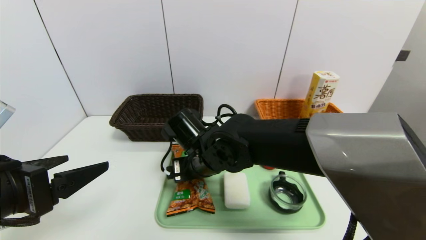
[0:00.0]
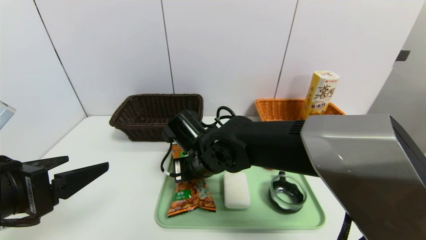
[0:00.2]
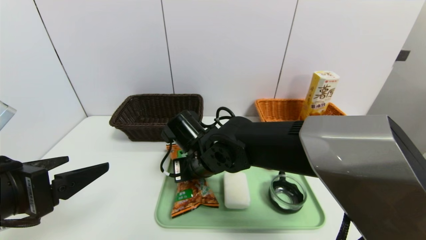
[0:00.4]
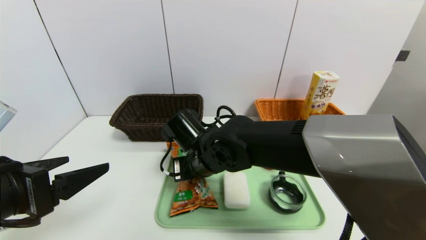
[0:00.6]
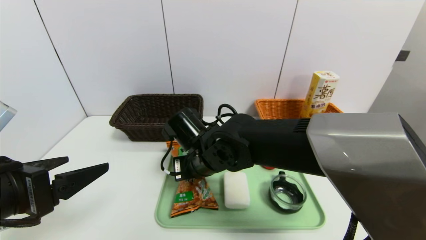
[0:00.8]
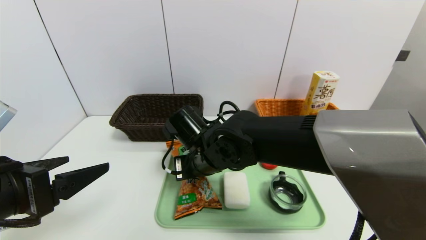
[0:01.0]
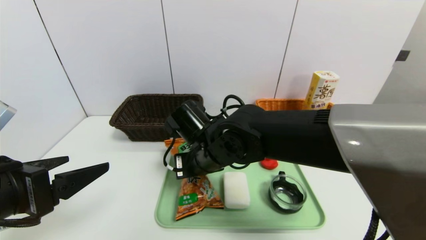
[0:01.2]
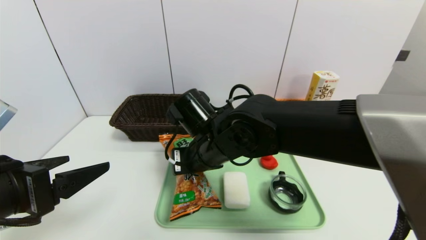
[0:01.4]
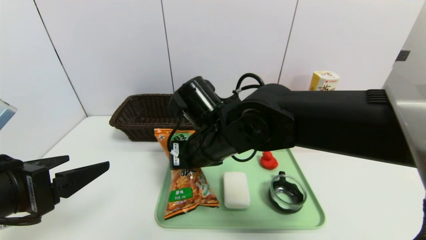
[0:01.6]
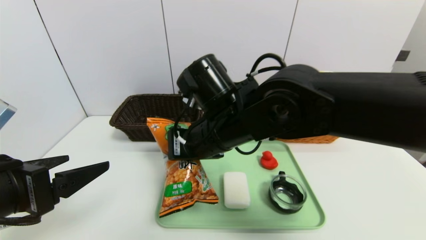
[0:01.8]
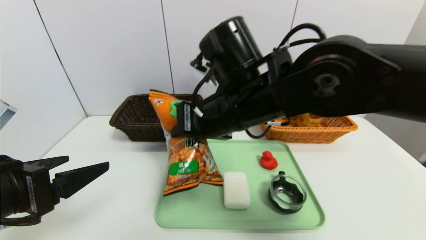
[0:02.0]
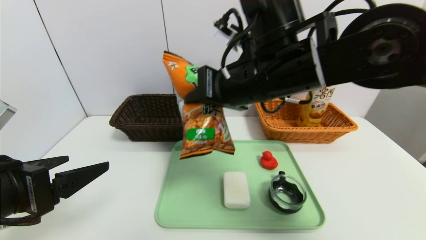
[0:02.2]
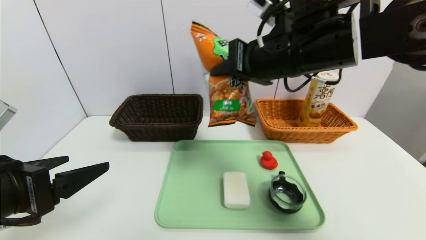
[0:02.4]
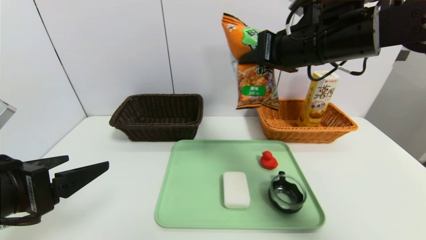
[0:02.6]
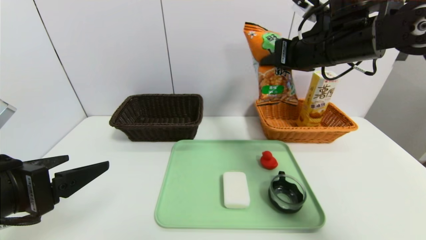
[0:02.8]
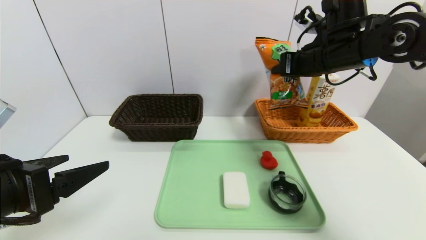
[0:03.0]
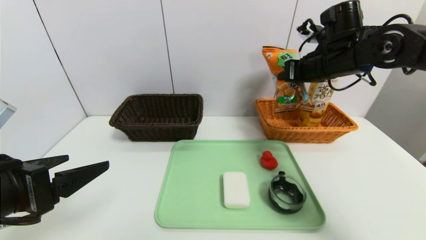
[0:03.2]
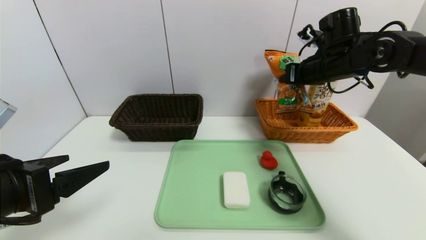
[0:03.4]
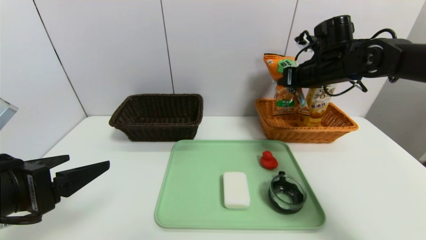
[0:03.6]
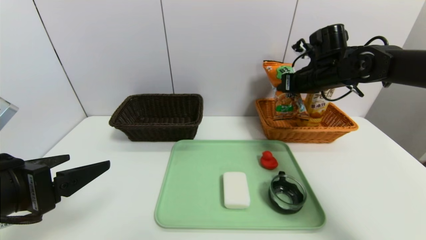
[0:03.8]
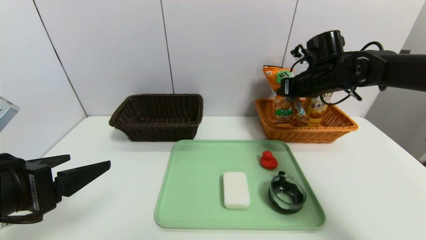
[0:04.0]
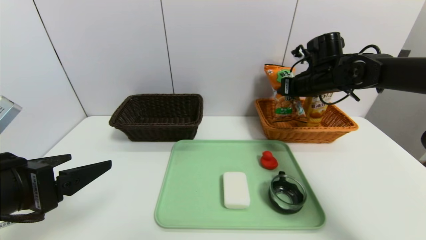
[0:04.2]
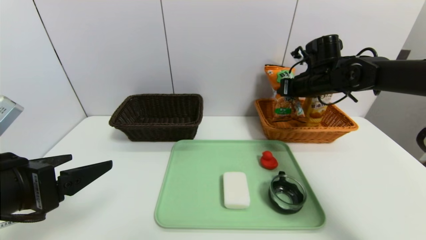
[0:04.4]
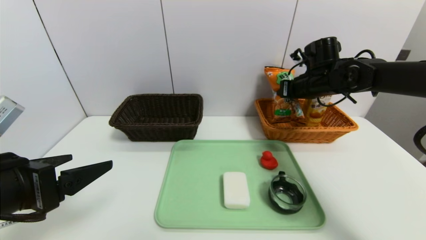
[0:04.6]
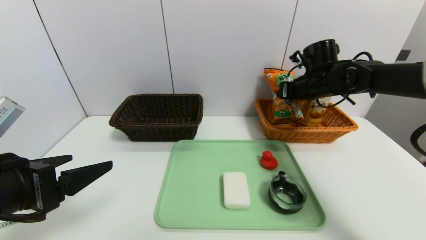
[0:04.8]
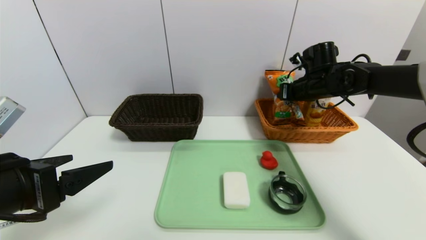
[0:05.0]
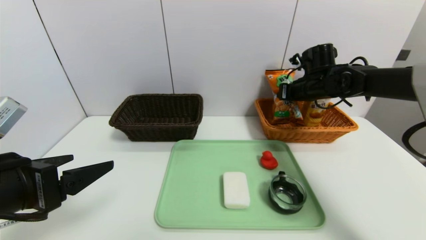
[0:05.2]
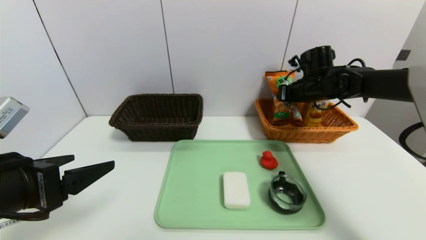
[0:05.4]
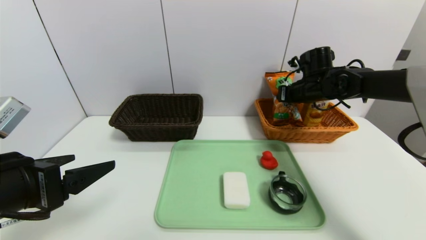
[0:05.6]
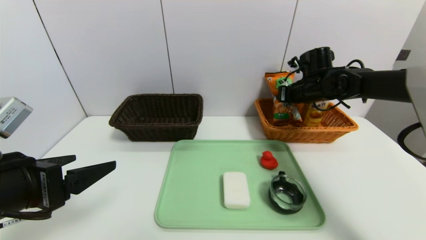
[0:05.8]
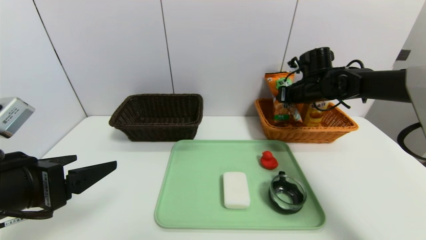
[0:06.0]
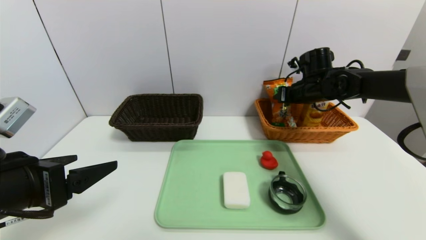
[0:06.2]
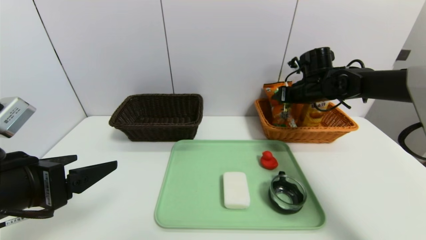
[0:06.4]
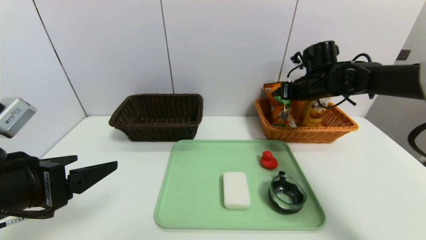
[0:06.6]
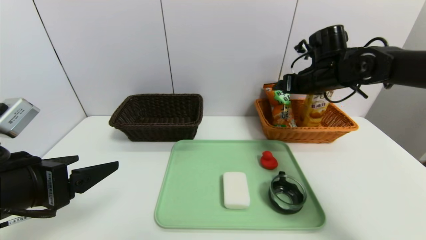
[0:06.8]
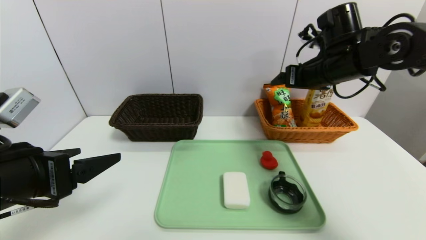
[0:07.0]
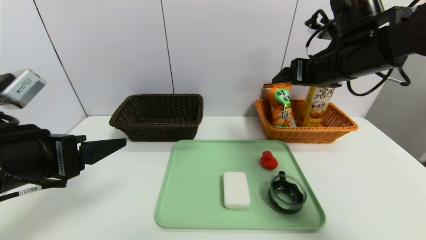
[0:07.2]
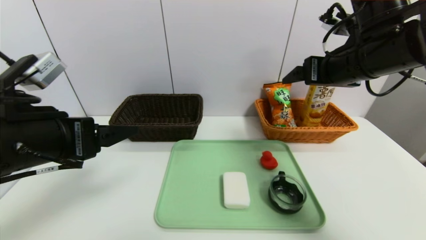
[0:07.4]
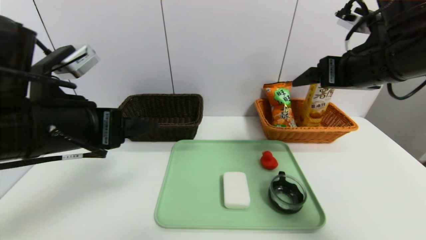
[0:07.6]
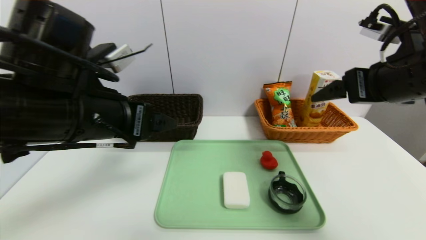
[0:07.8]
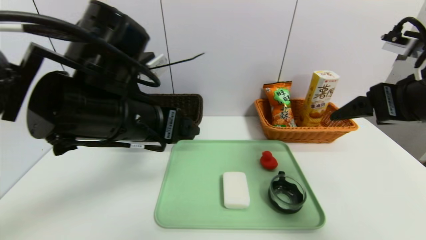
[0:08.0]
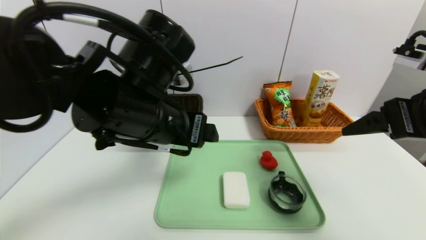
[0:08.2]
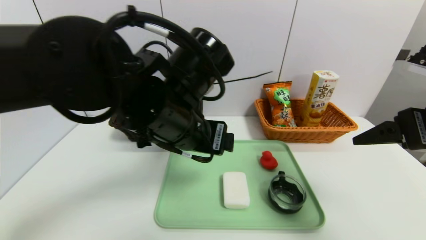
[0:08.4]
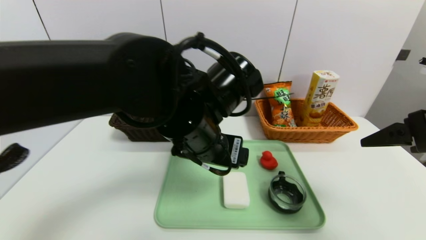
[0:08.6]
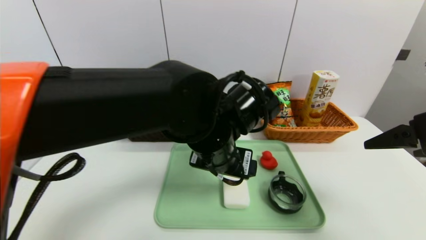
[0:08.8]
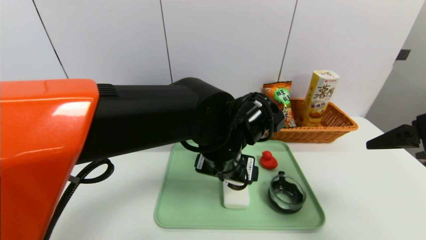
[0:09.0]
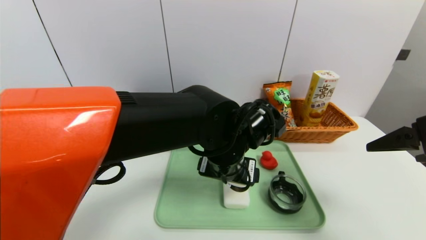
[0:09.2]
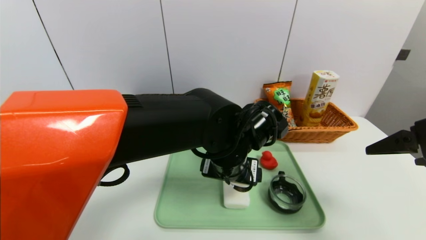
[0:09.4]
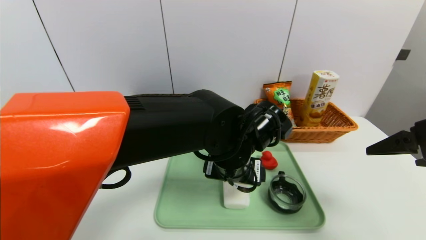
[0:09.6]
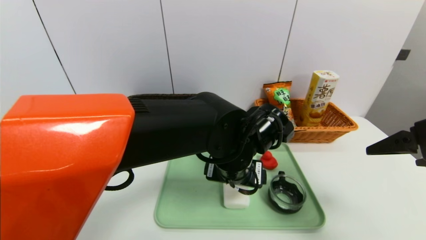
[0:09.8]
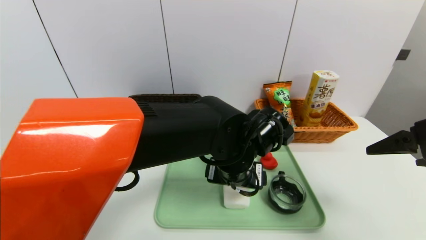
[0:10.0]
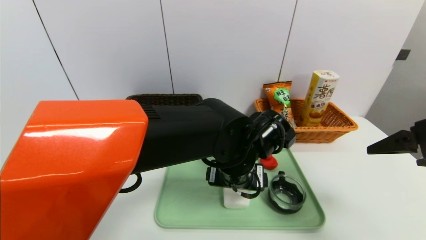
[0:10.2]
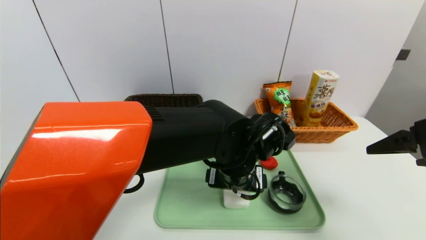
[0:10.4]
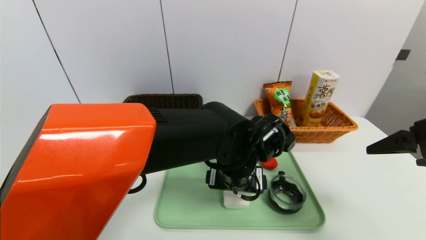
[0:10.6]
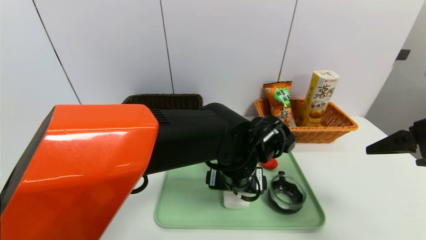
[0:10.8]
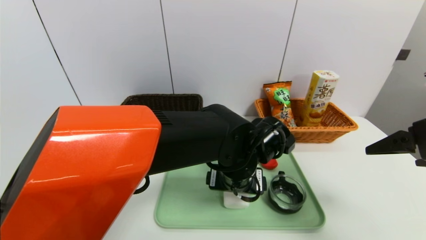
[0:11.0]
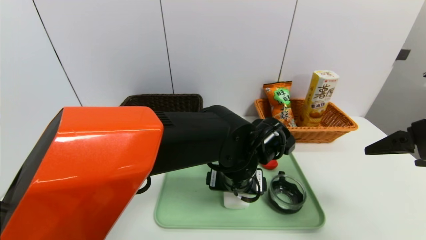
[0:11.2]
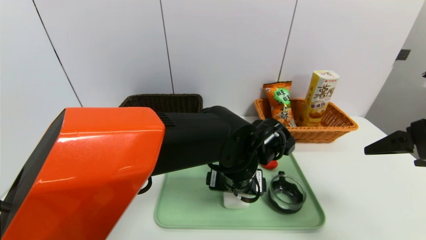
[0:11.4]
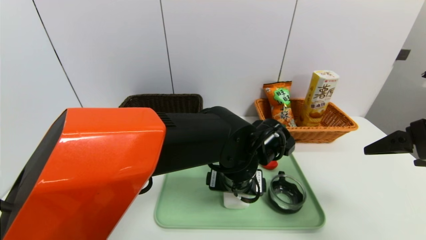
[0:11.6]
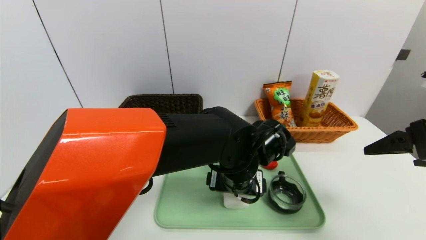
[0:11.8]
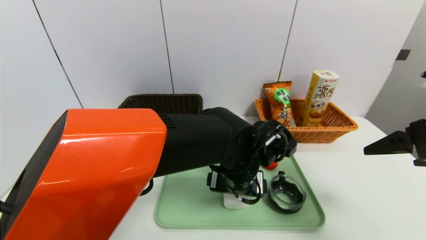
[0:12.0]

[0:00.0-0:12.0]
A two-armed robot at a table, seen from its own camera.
Task of the whole recording: place the food in the right basket with the right gripper, and place the non food items in the left basket with the left gripper.
Step, 0:00.0 to 0:06.8: Grasp the cookie and put it in the right basket.
0:00.0 to 0:01.6: The right gripper heads upward, covering some 5 cm, and closes.
0:01.6 to 0:03.0: The right gripper heads to the right, forward and upward, covering some 25 cm.
0:03.0 to 0:04.4: The right gripper is displaced downward and forward by approximately 10 cm.
0:04.4 to 0:06.0: The grippers move only a little.
0:06.0 to 0:07.6: The left gripper shifts approximately 10 cm forward, to the right and upward. Meanwhile the right gripper heads backward and upward, covering some 25 cm, and opens up.
0:07.6 to 0:09.0: The left gripper travels to the right and downward by about 25 cm; the right gripper heads backward and to the right, covering about 15 cm.
0:10.4 to 0:12.0: Both grippers stay about where they are.

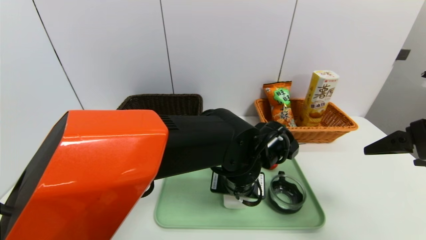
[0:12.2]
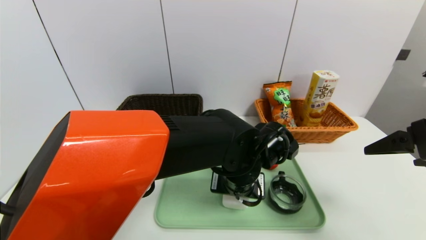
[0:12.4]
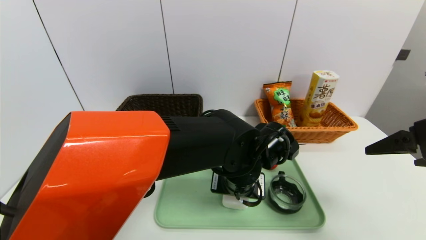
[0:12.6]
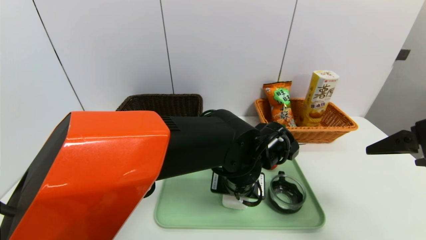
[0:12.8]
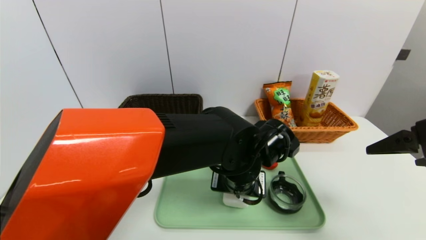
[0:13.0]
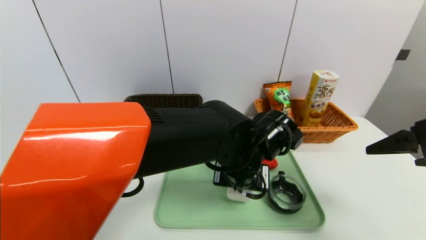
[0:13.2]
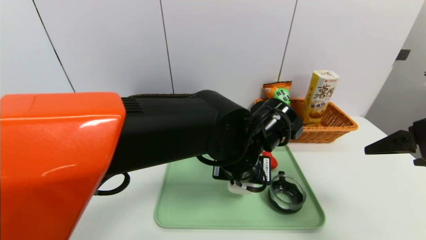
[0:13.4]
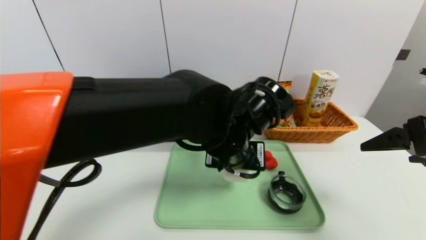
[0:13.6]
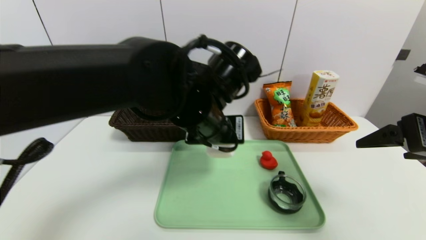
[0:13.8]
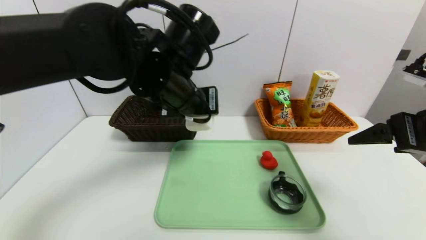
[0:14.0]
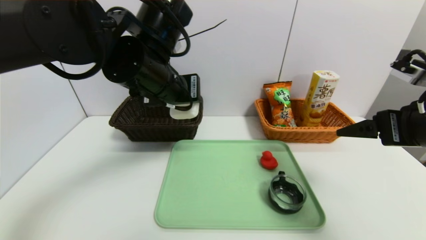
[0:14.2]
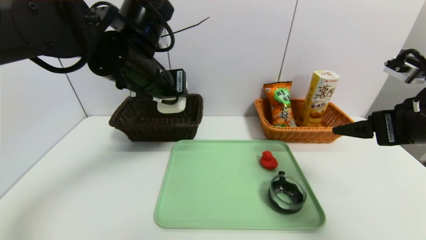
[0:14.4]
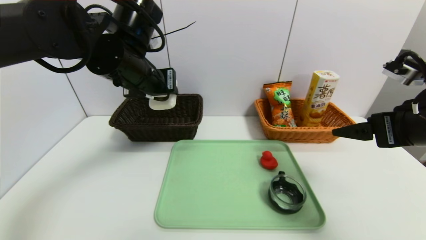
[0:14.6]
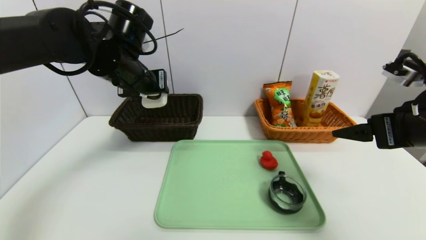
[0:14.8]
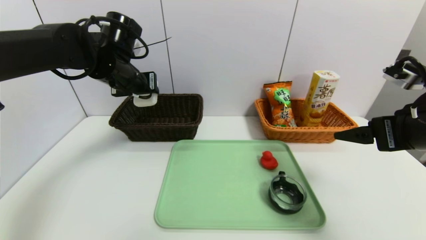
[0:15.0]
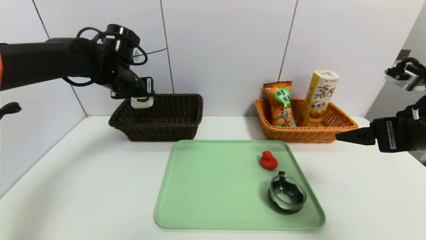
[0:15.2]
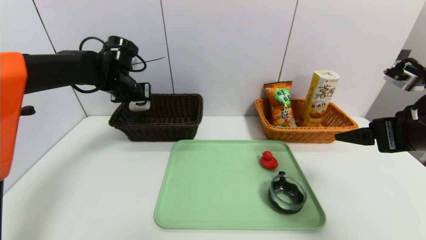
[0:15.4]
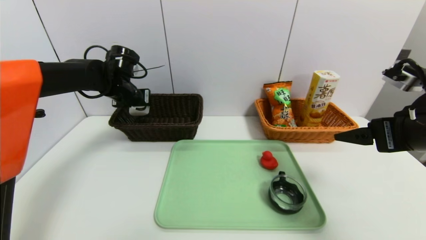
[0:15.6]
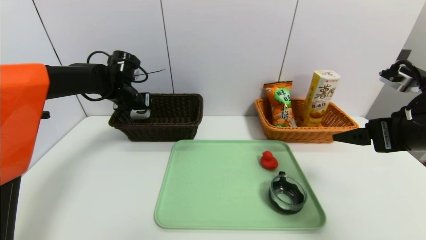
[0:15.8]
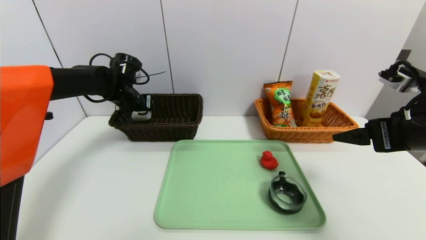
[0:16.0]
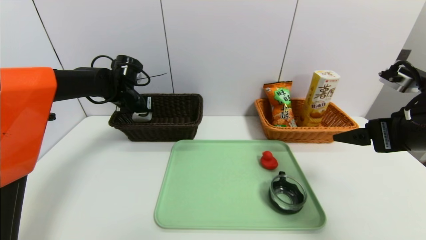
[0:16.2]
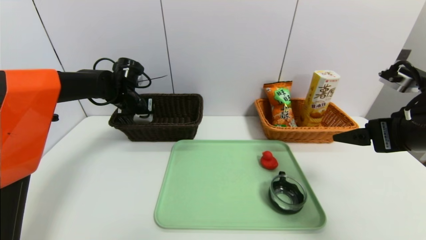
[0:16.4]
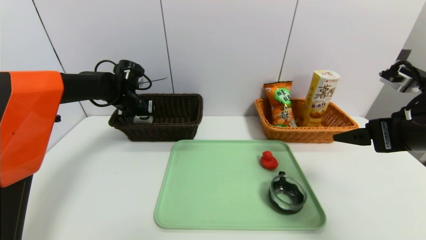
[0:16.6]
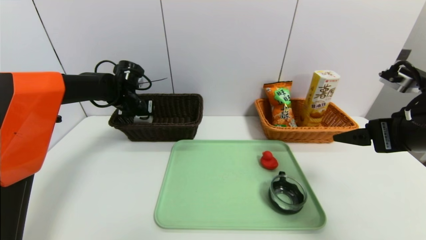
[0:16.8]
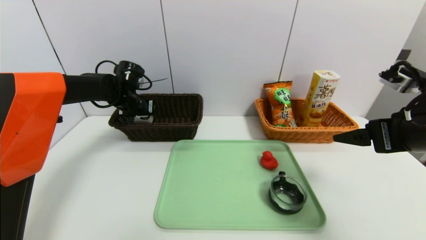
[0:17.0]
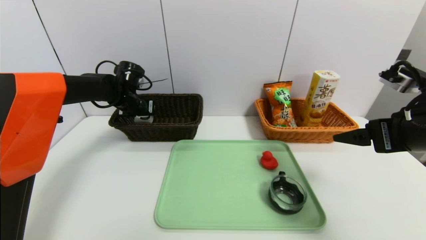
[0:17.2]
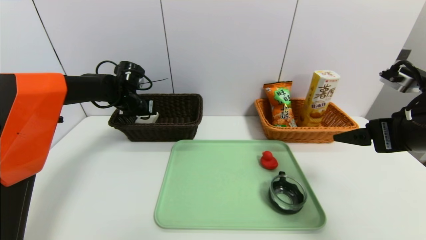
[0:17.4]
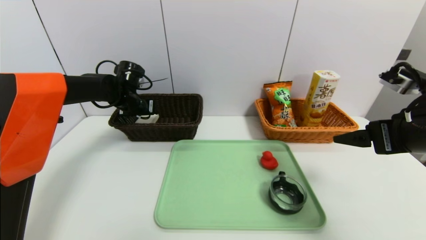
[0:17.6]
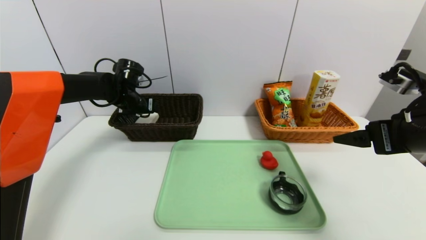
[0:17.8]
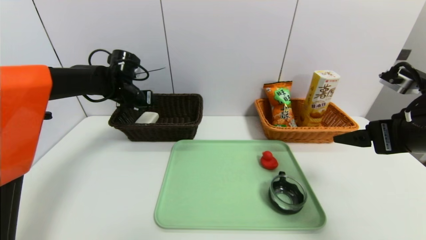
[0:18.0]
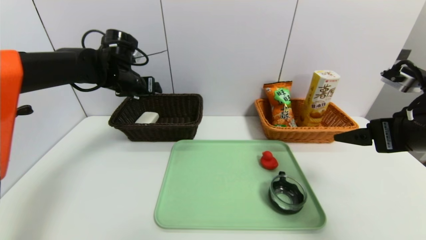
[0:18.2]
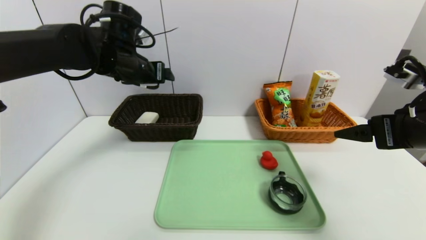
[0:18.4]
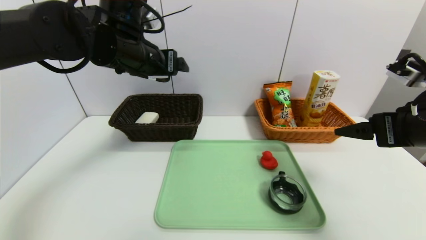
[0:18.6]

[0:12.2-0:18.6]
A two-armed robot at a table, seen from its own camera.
Task of the whole recording: place the food in the right basket with the right gripper, and place the non food items in the left basket with the left gripper.
Step, 0:12.2 to 0:18.0: Grasp the soap and put it in the left basket.
0:12.2 to 0:13.8: The left gripper heads upward and to the left, covering approximately 15 cm.
0:13.8 to 0:15.4: The left gripper heads to the left and forward, covering about 25 cm.
0:15.4 to 0:17.0: The left gripper moves downward, roughly 5 cm.
0:17.0 to 0:18.6: The left gripper heads upward, backward and to the right, covering some 20 cm, and opens.
